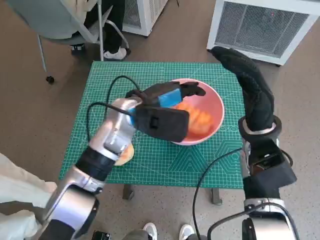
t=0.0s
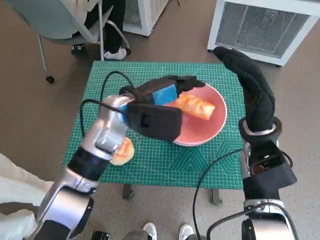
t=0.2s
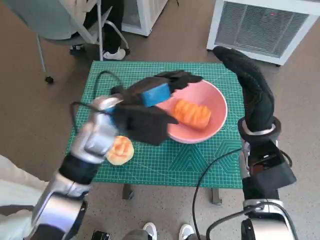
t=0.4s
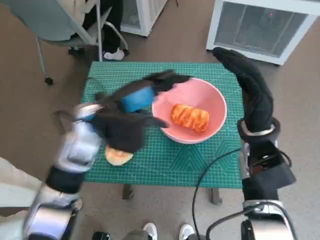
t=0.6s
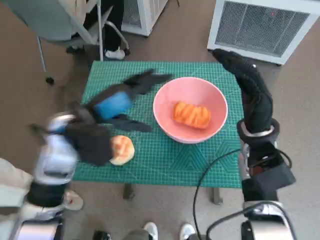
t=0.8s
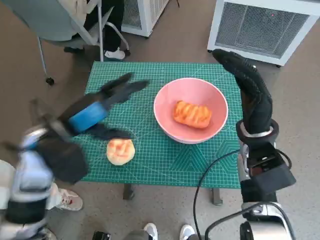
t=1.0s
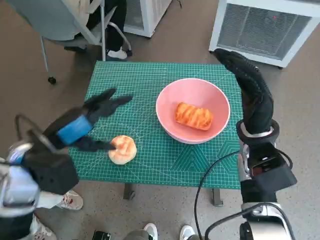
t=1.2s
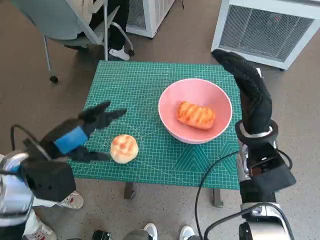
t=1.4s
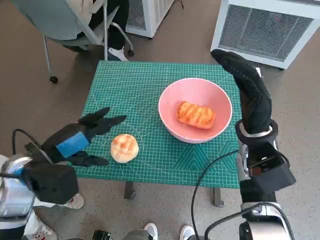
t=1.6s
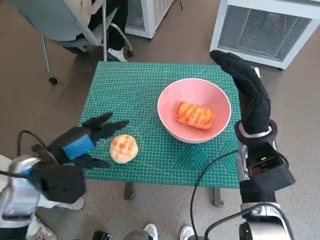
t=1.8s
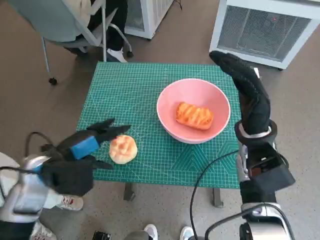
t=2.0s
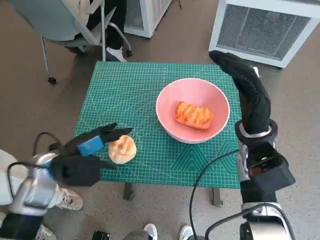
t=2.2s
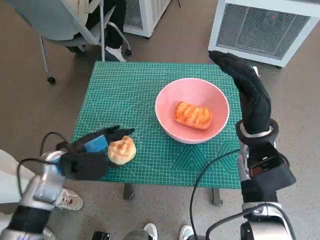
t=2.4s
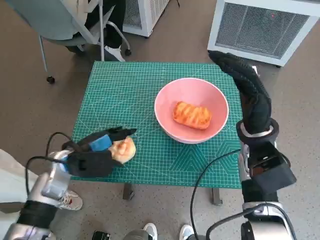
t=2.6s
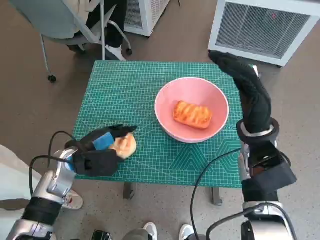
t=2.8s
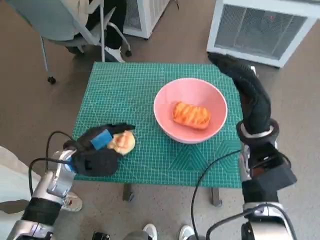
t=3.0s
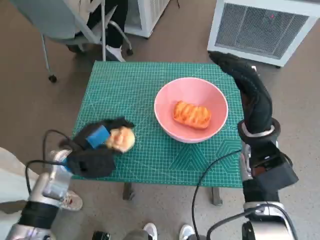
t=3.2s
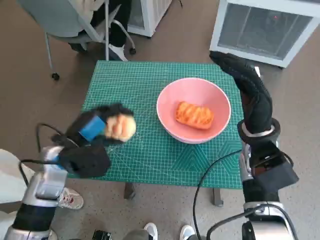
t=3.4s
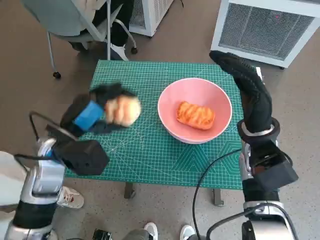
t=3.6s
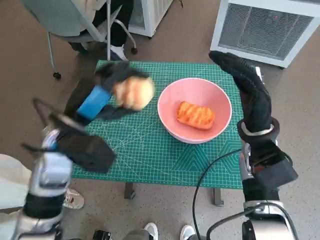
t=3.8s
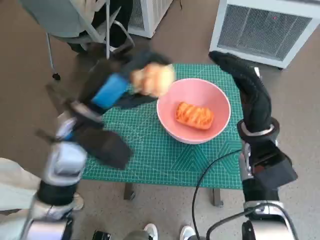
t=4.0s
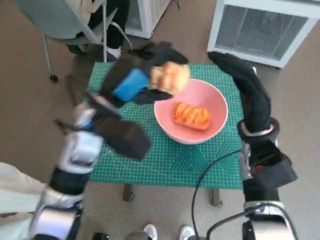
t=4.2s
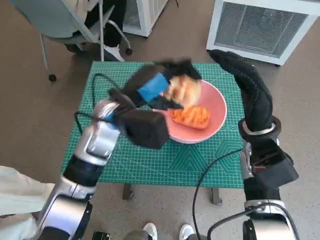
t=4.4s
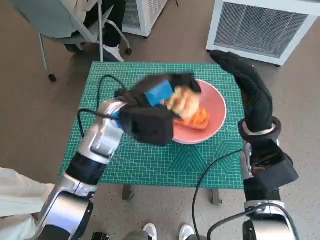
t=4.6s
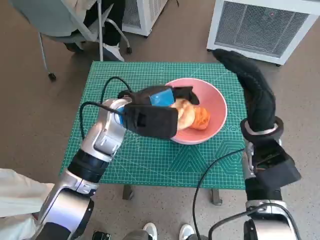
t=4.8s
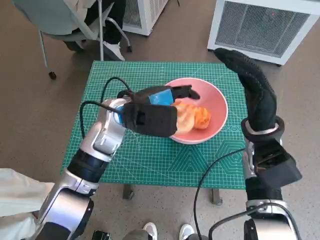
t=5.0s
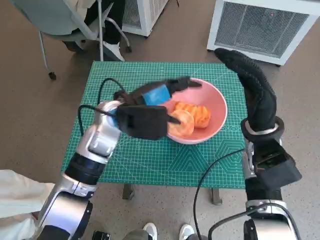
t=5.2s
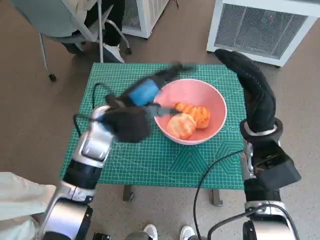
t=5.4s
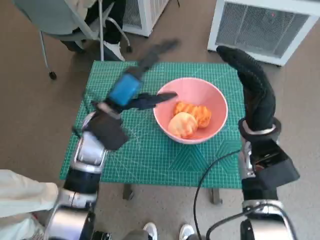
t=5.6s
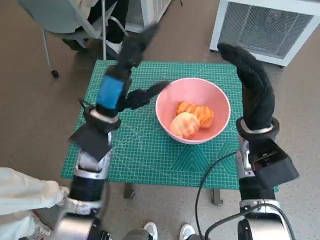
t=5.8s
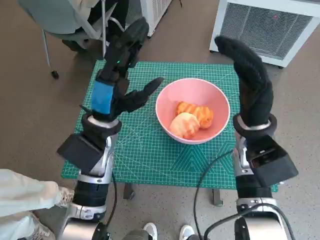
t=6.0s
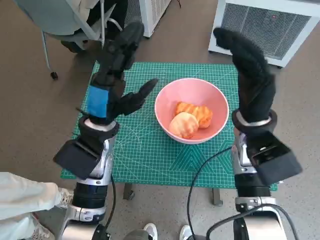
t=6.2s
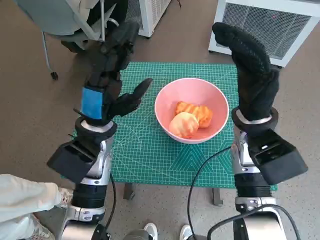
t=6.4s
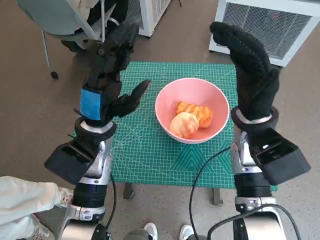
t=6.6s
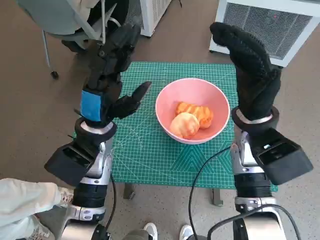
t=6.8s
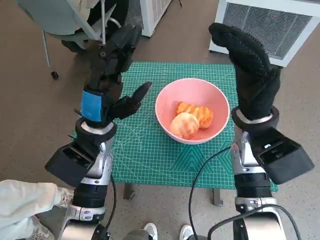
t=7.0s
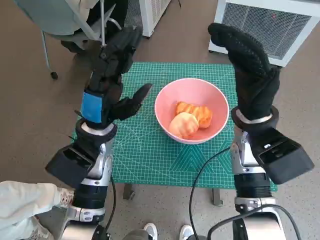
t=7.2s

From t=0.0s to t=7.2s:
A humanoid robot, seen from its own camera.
Task of the whole recording: Push the bowl to the center of the table and put the bread into the bowl.
Step, from t=0.4s to t=2.4s: Grasp the round bread with left hand.
Step, from t=2.6s to t=5.6s: Place the round bread in pink bowl with left hand.
From t=0.0s to t=1.4s: The left hand is displaced to the left and backward by about 20 cm.
From t=1.4s to t=2.8s: The left hand moves downward, roughly 10 cm.
From t=2.8s to t=4.4s: The left hand moves upward and to the right, approximately 15 cm.

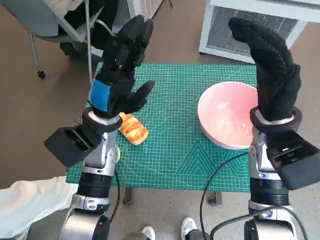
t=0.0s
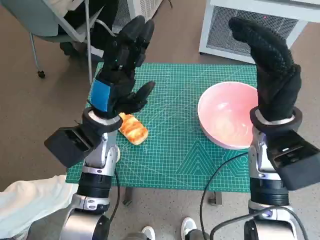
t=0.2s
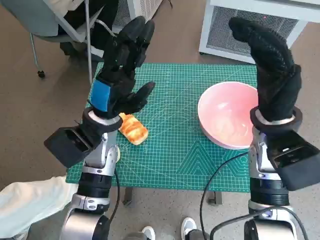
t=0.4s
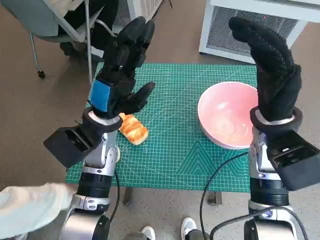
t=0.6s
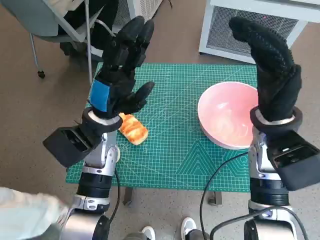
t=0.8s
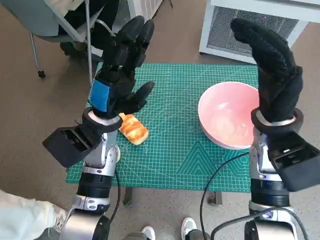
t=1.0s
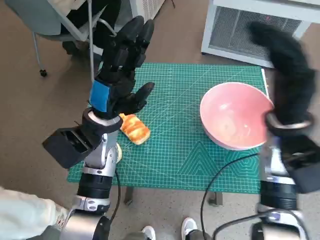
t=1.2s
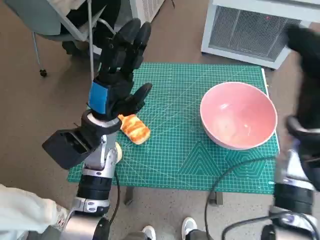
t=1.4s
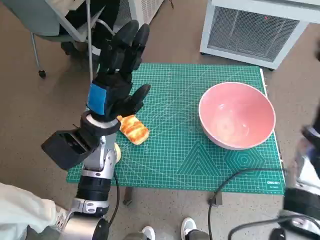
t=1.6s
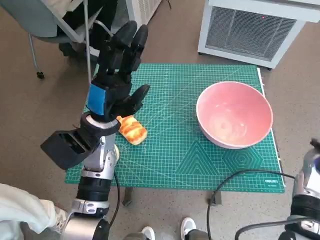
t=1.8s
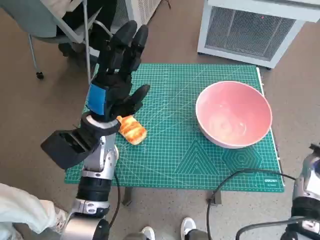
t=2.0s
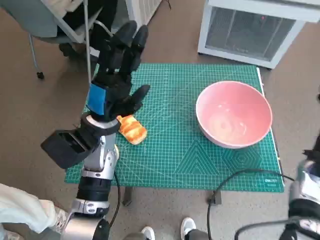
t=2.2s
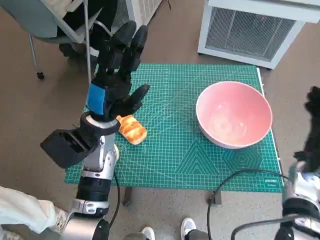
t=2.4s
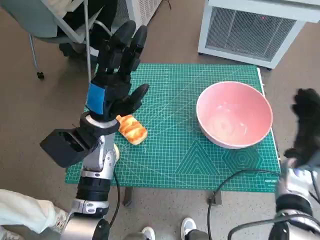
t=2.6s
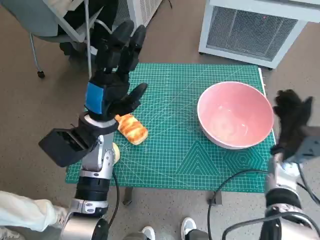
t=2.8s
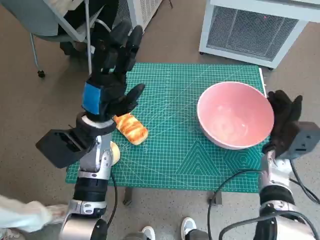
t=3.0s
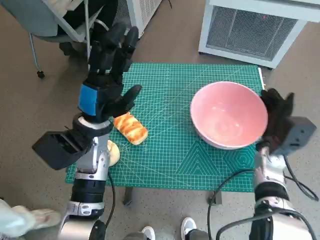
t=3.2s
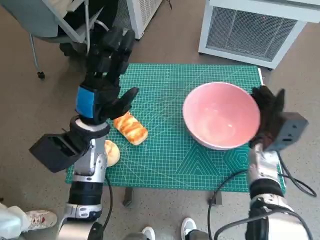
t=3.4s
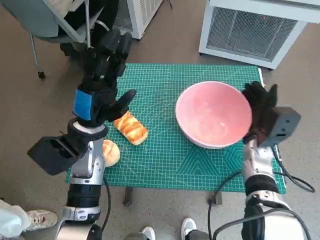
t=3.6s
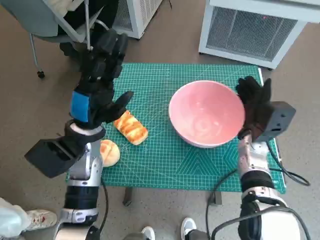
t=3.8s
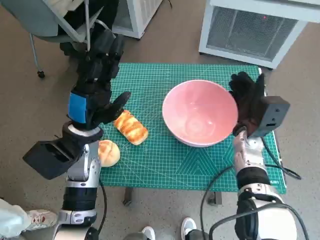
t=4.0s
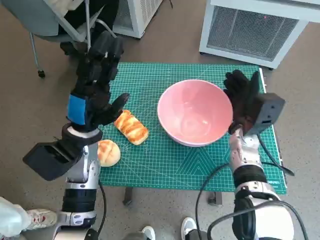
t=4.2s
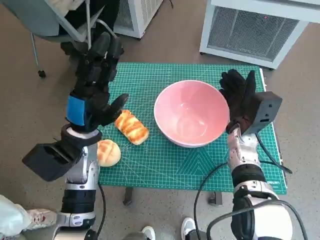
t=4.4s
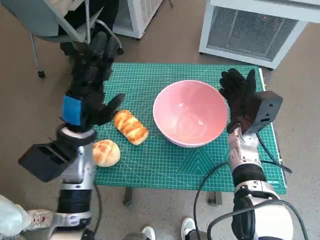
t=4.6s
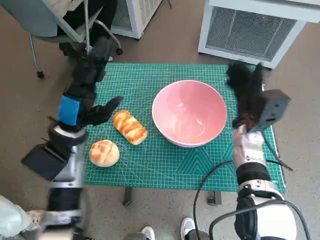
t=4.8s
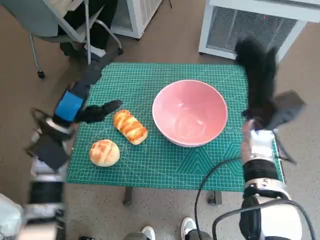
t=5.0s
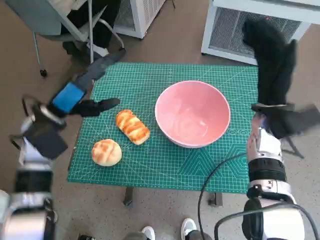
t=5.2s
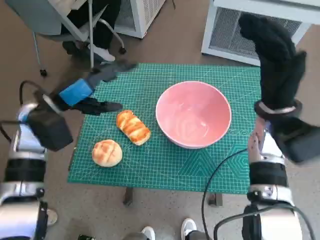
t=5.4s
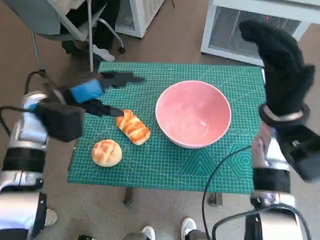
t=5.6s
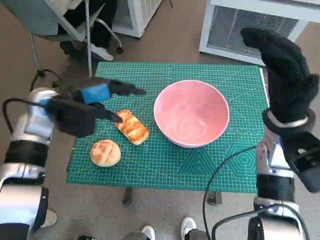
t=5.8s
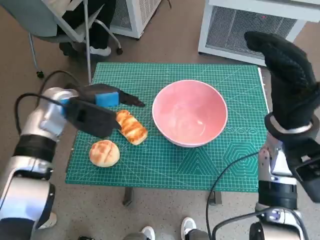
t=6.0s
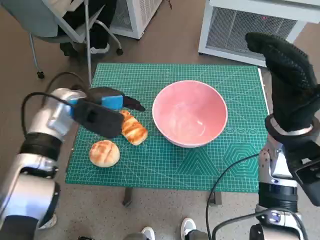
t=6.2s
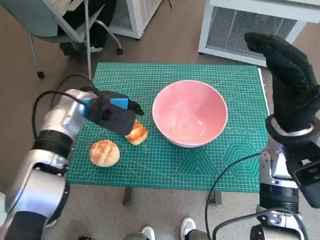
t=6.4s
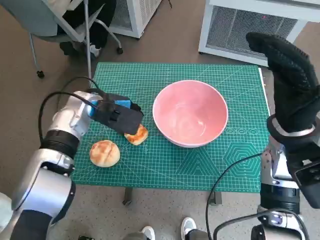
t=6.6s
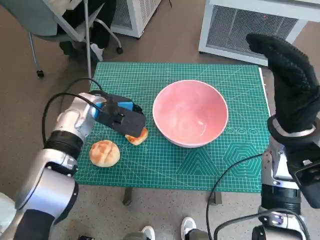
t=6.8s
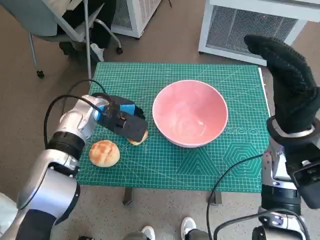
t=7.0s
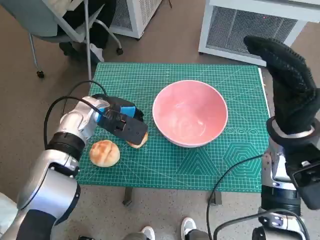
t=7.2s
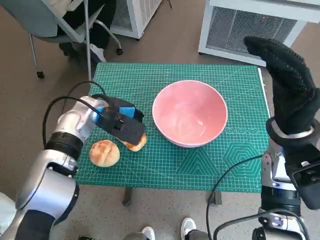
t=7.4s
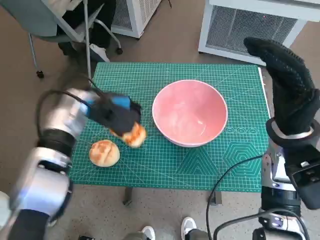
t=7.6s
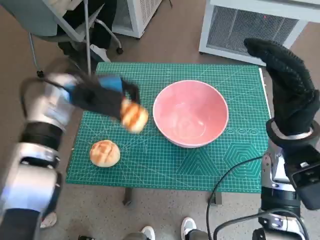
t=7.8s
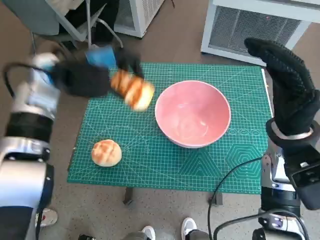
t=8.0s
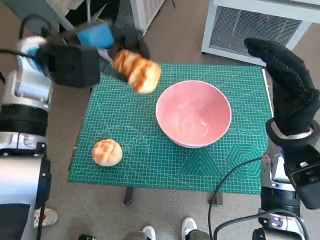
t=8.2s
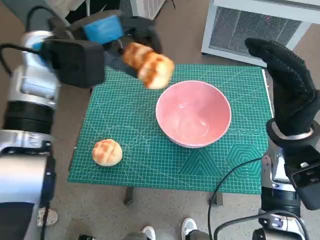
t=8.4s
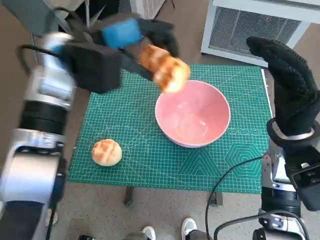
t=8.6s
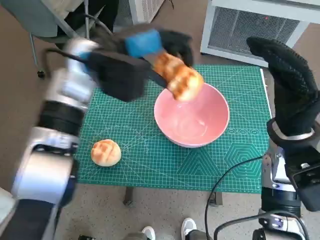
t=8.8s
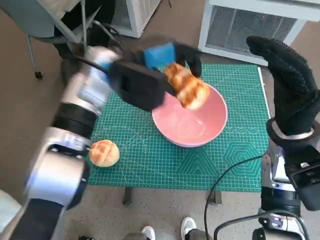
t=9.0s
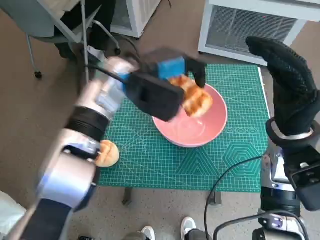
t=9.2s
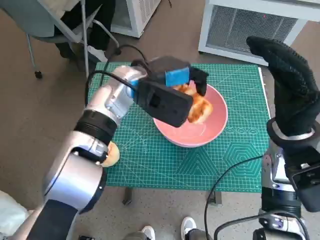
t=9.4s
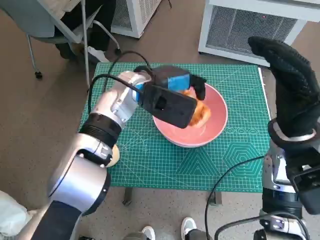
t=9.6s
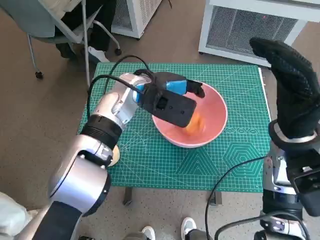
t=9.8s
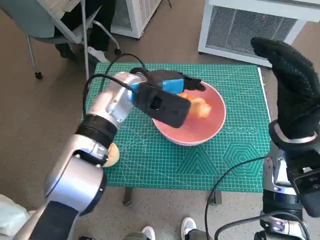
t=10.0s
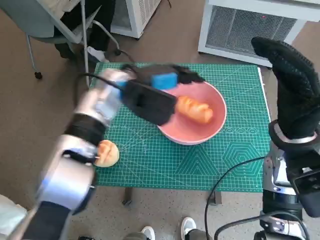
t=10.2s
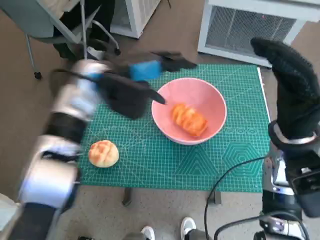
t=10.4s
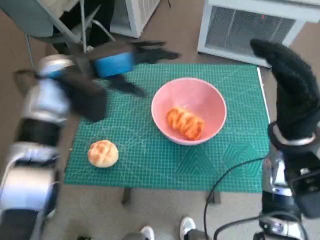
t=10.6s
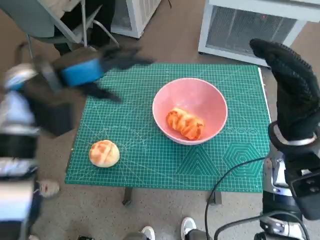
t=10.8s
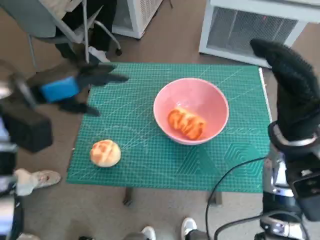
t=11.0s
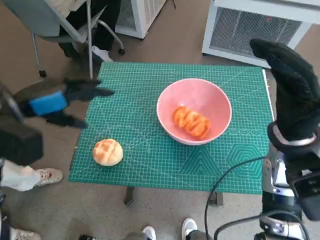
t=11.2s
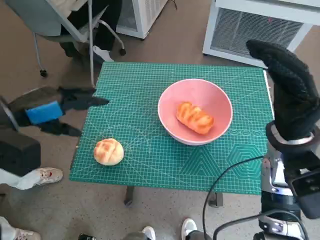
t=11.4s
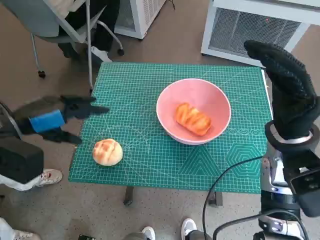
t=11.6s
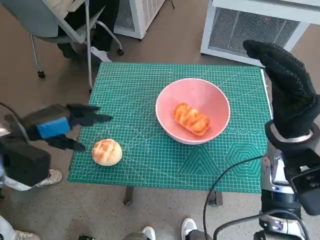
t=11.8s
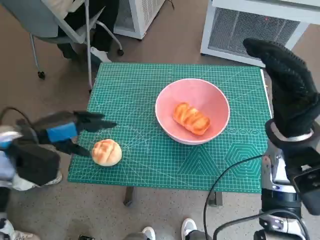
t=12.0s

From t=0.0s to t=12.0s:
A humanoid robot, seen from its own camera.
Task of the whole recording: Push the bowl to the center of the table and put the bread into the bowl.
Step, from t=0.0s to t=4.8s: Move the pink bowl to the center of table with right hand.
Step, from t=5.0s to t=7.2s: Grasp the long bread with left hand.
Step, from t=7.4s to t=10.2s: Place the long bread in pink bowl with left hand.
From t=1.6s to t=3.0s: The right hand travels downward by about 10 cm.
From t=3.0s to t=4.4s: The right hand goes about 10 cm to the left.
From t=4.4s to t=6.0s: The right hand travels upward by approximately 10 cm. The left hand heads forward, covering some 5 cm.
From t=6.0s to t=7.6s: The left hand ends up about 5 cm from where it was.
From t=7.6s to t=9.0s: The left hand shifts roughly 15 cm upward and to the right.
From t=10.4s to t=12.0s: The left hand is displaced to the left and backward by some 20 cm.

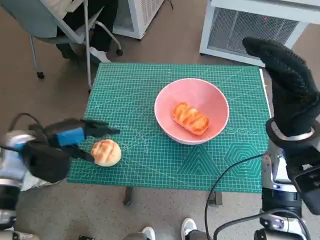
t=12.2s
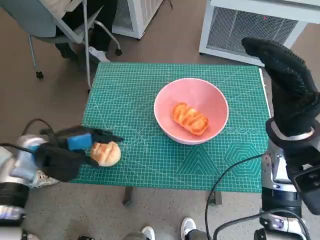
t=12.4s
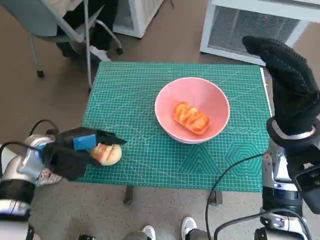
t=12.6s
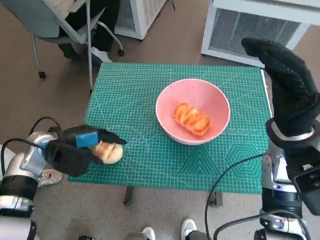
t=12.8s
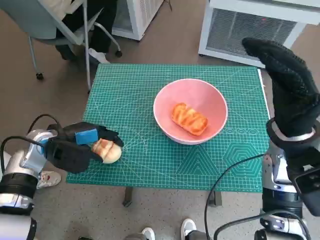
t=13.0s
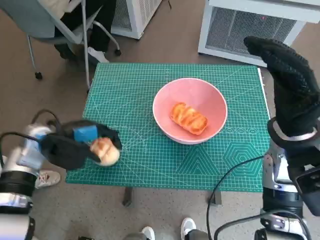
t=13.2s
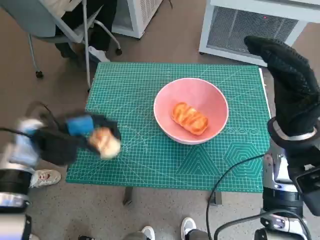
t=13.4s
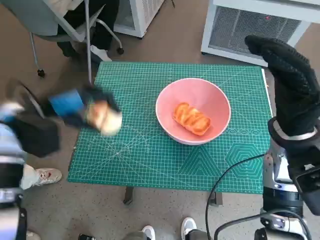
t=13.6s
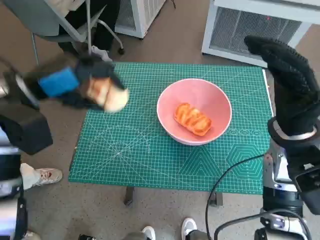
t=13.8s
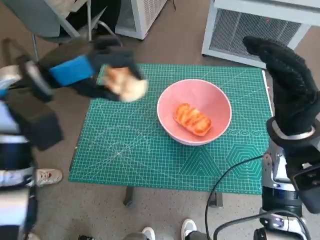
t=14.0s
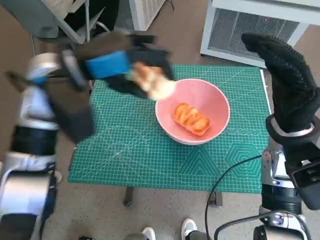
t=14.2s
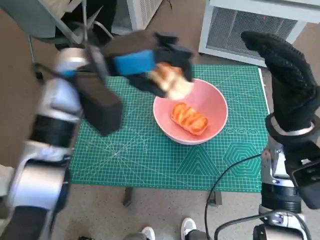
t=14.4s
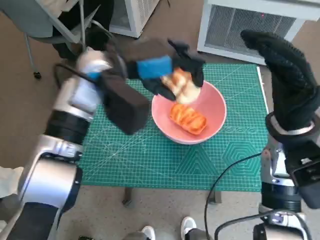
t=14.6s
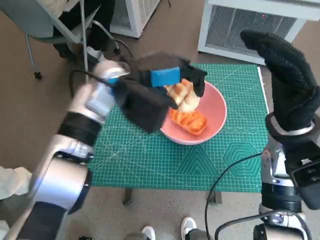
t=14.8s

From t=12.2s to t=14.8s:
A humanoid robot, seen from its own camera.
Task of the whole recording: Push the bowl to the center of the table and put the bread into the bowl.
From t=12.2s to t=13.4s: The hands make only small movements.
From t=13.4s to t=14.8s: The left hand shifts approximately 20 cm to the right and upward.
